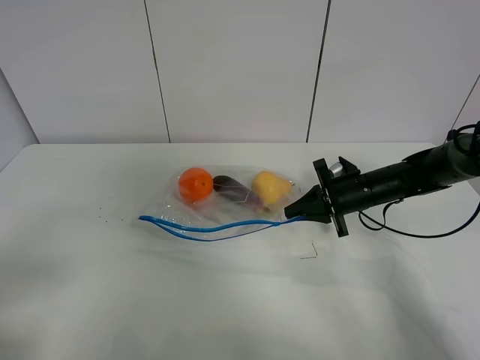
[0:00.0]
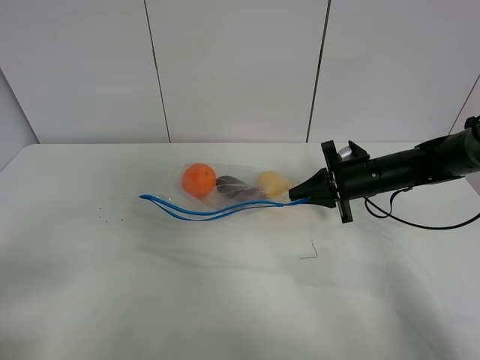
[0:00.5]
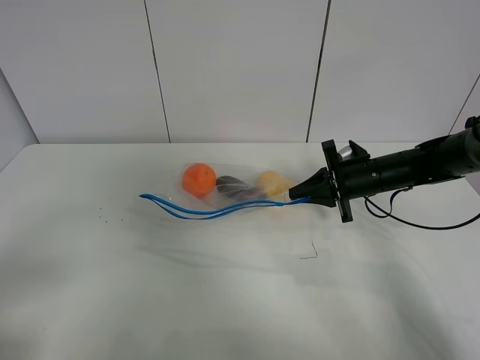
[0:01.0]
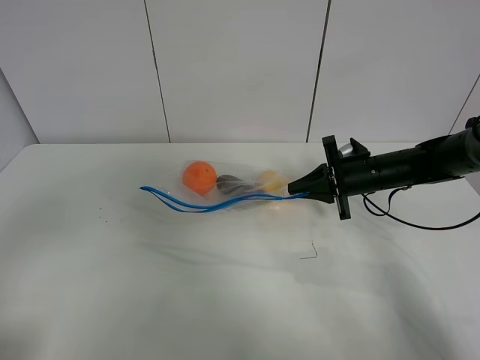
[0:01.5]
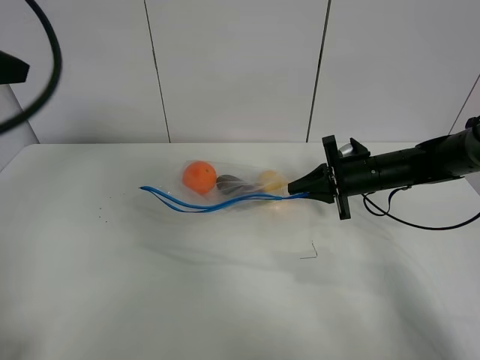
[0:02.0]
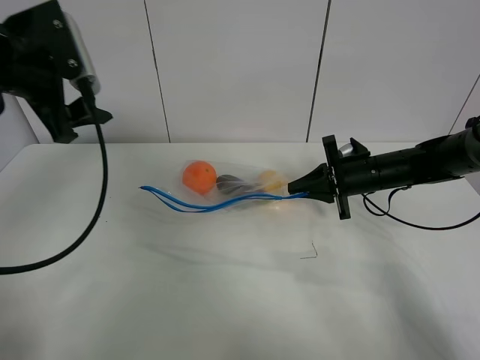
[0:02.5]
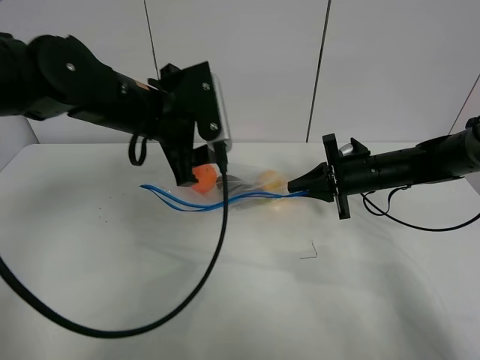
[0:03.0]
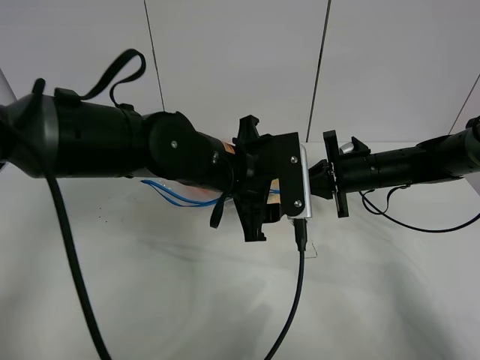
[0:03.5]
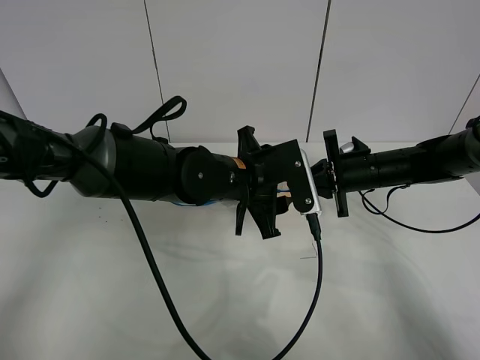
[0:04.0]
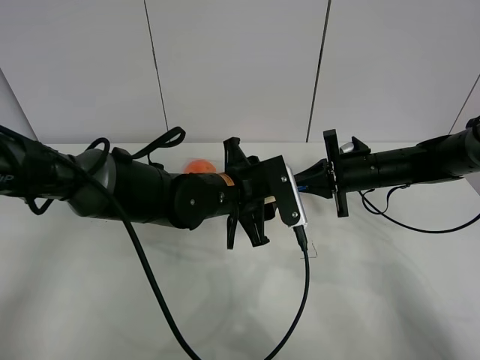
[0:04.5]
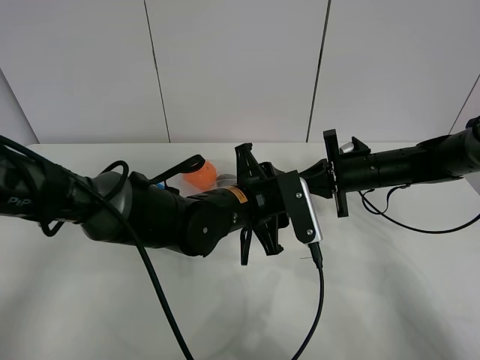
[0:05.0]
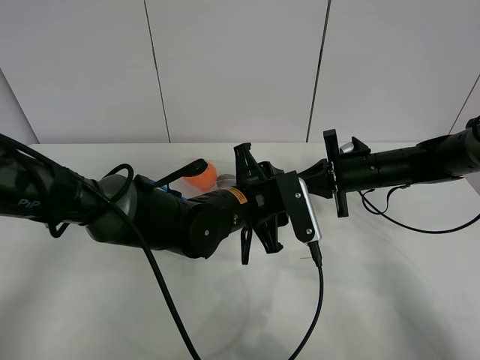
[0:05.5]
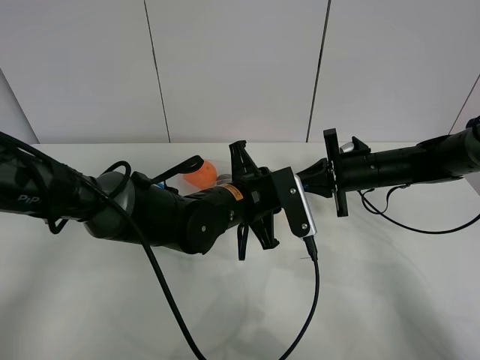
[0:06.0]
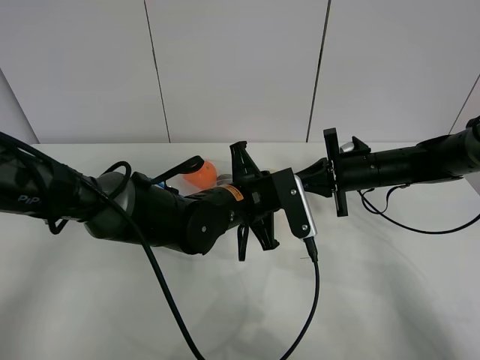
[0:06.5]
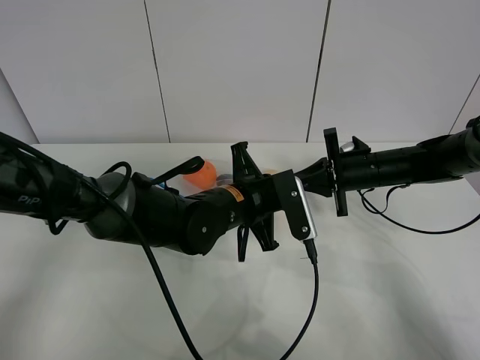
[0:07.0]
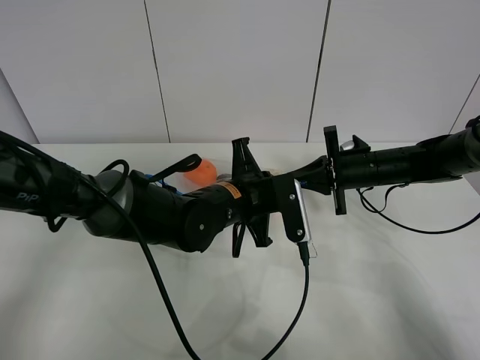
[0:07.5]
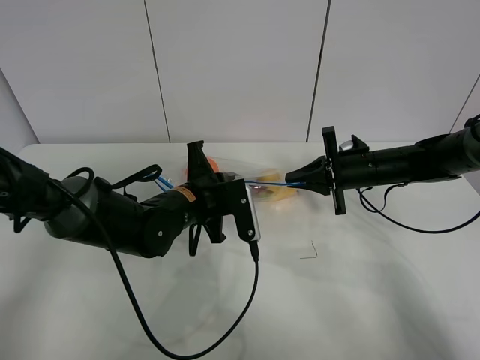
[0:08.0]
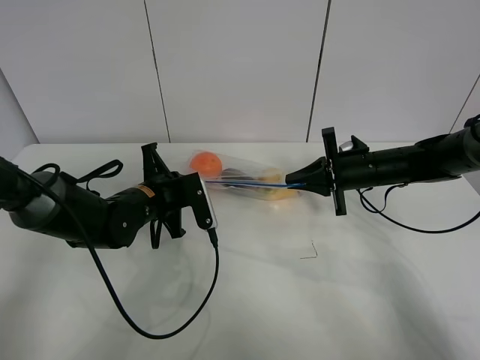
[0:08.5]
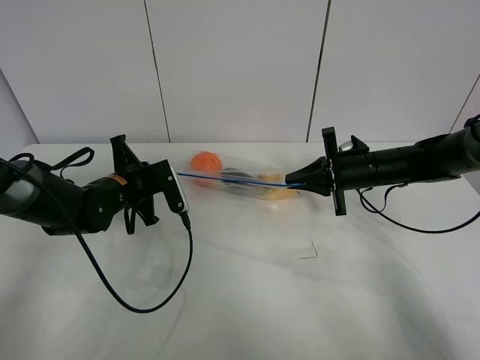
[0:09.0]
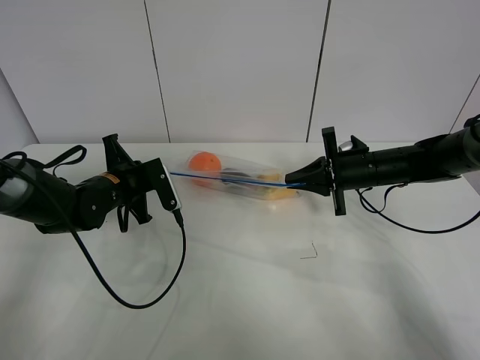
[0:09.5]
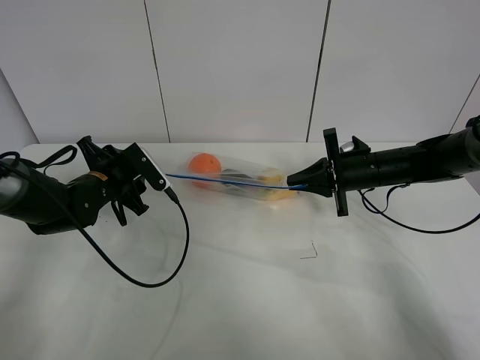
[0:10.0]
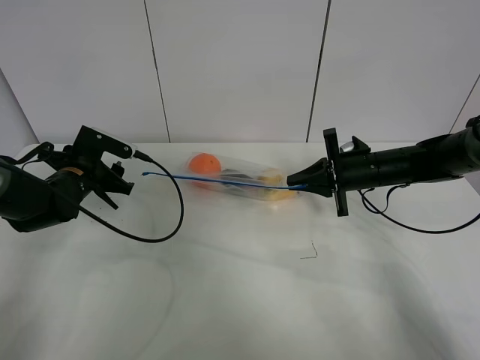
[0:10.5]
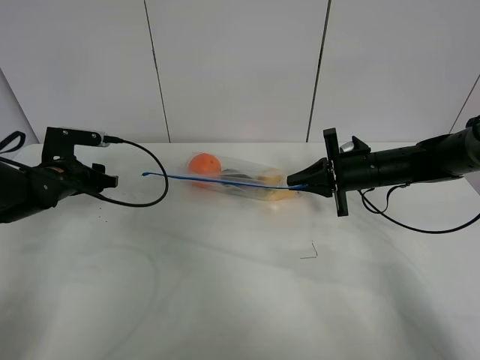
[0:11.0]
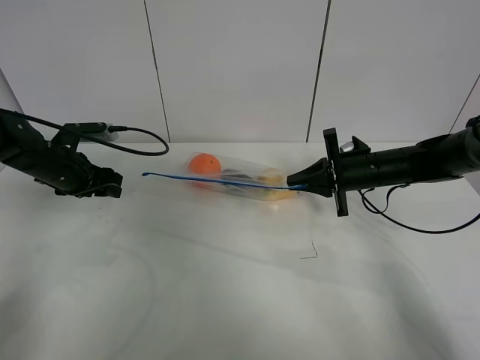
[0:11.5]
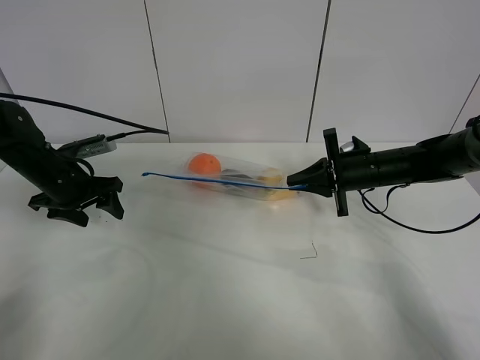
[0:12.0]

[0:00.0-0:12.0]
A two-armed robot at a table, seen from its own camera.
Step, 0:01.0 to 0:10.0: Pull the fruit bag with left gripper.
0:00.0 to 0:02.0: The left gripper goes approximately 25 cm forward and upward.
0:02.0 to 0:04.0: The left gripper moves to the right and downward, approximately 35 cm.
0:04.0 to 0:06.0: The left gripper closes.
0:06.0 to 0:08.0: The left gripper shifts roughly 5 cm to the left.
0:08.0 to 0:10.0: The left gripper is displaced to the left by about 15 cm, and opens its fingers.
0:10.0 to 0:12.0: The left gripper travels to the left by some 5 cm.

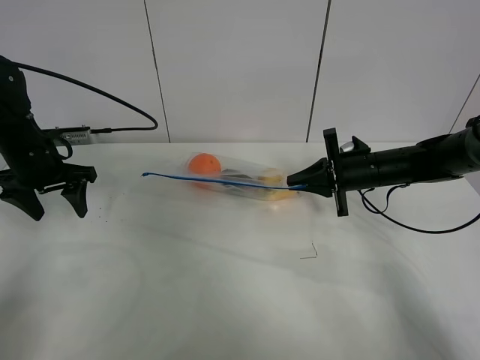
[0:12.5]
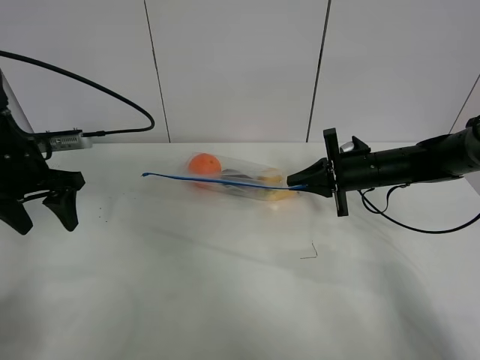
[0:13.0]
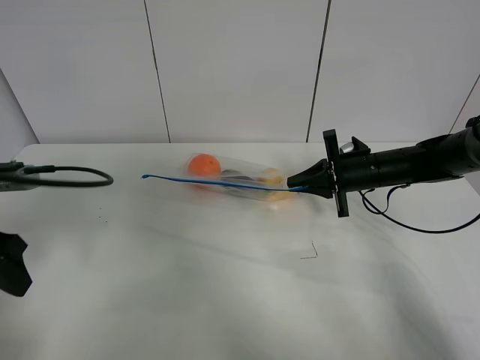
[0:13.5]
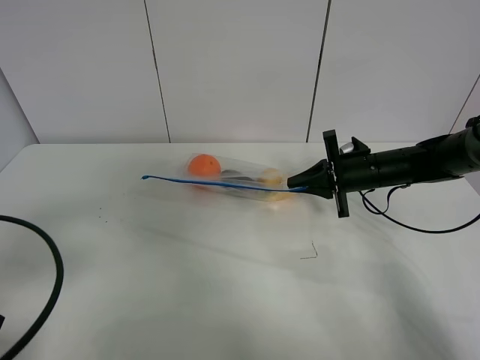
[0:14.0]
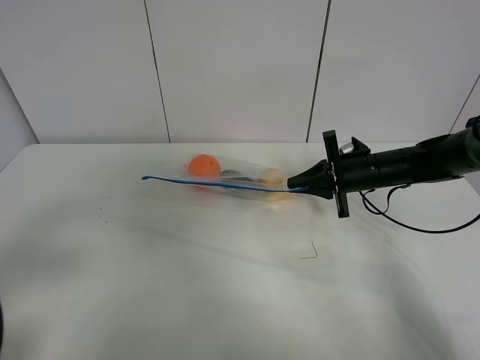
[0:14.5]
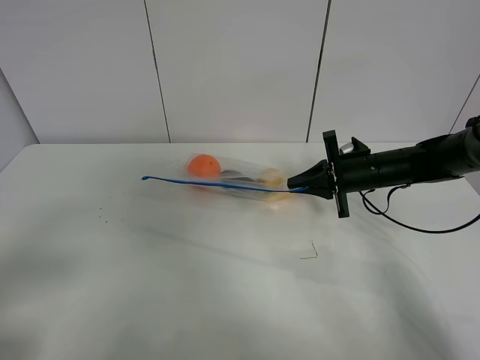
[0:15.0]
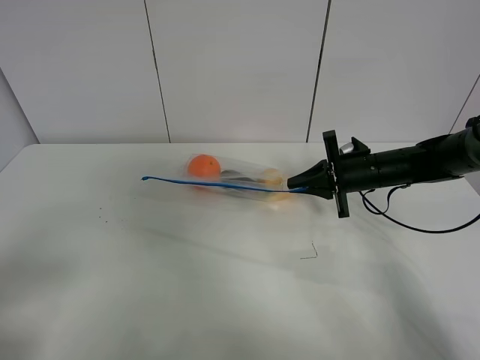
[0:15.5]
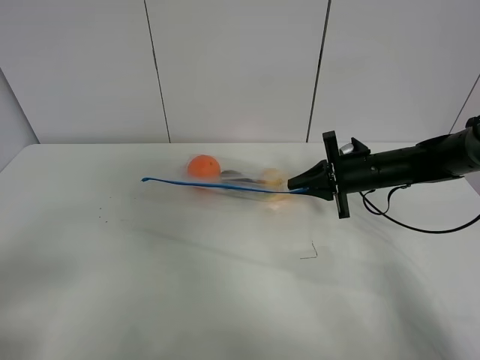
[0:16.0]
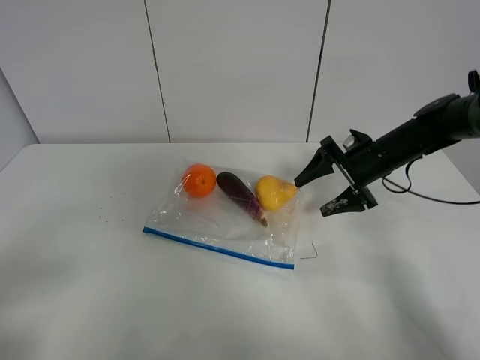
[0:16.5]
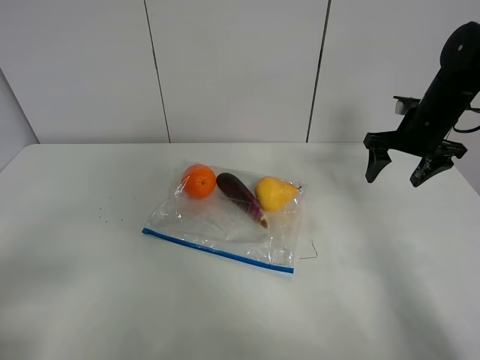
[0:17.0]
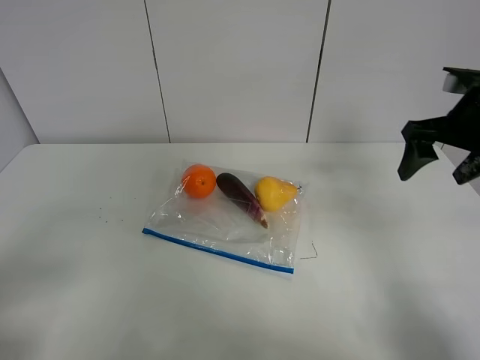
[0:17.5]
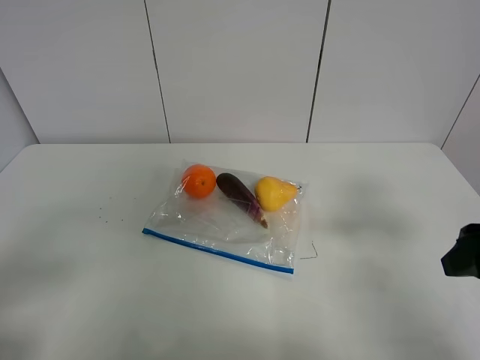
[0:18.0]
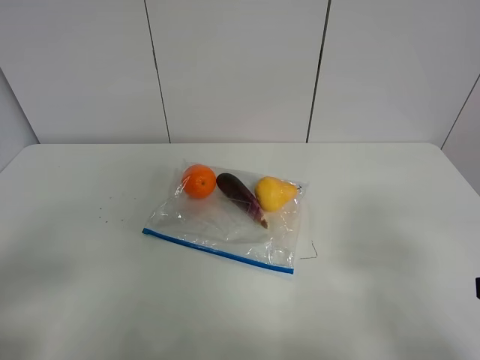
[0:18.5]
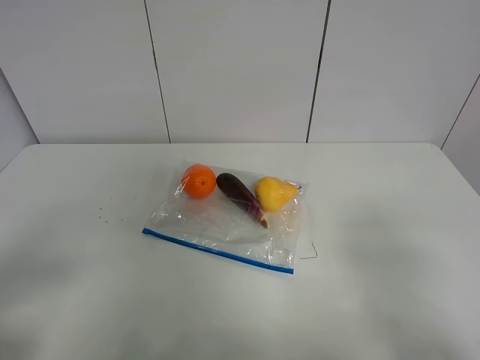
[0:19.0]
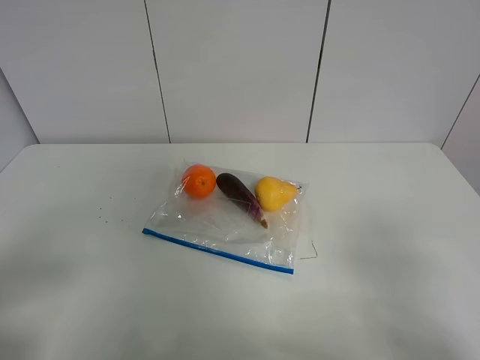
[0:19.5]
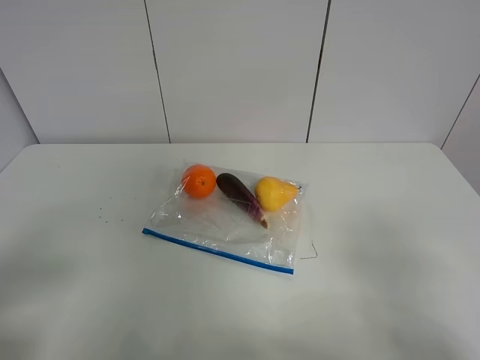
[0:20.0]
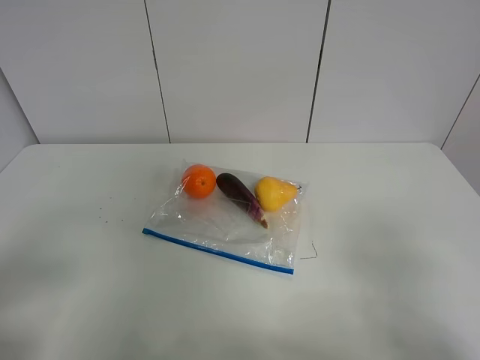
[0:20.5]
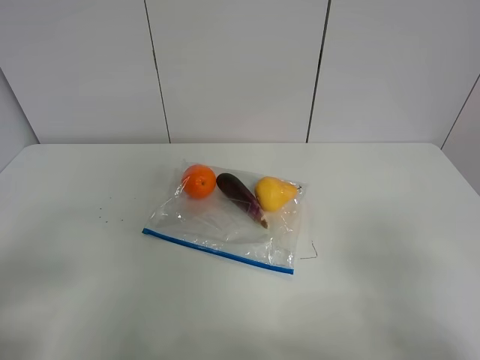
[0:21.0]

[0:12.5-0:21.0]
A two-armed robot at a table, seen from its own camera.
0:12.5 to 0:14.5: The left gripper heads backward, covering about 30 cm.
0:14.5 to 0:16.5: The right gripper opens its fingers.
0:16.5 to 0:19.0: The right gripper heads backward, covering roughly 35 cm.
